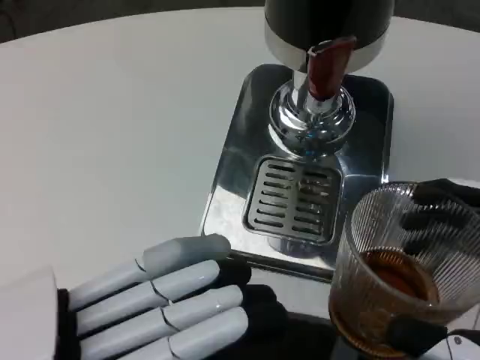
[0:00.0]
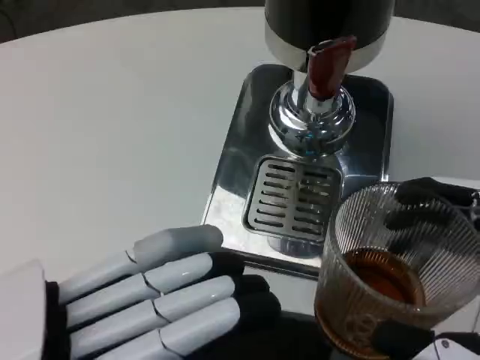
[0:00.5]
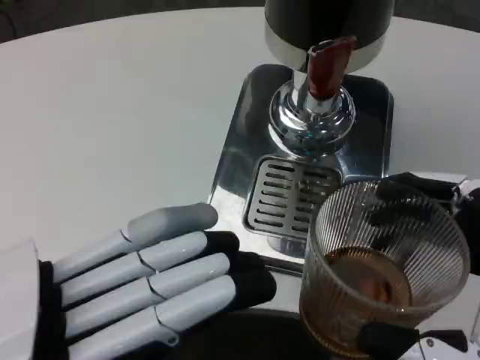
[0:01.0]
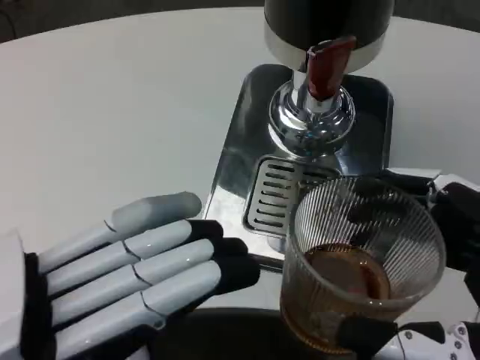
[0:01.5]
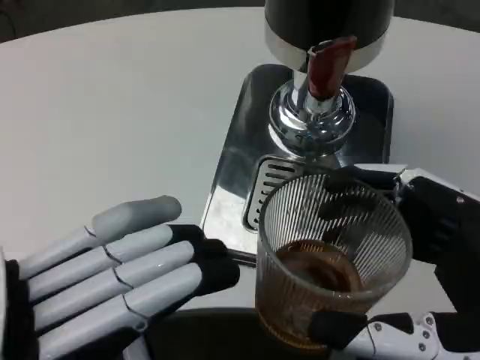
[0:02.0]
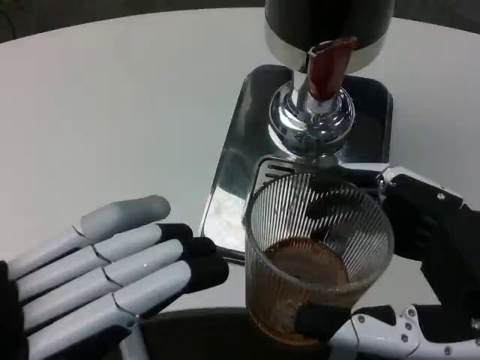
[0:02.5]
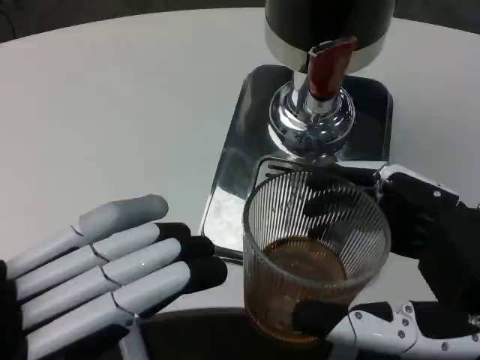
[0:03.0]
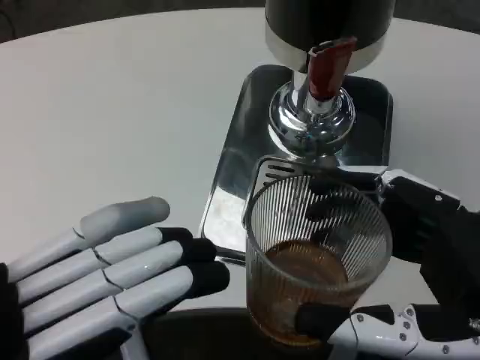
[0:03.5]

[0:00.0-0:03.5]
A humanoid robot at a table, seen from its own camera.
Task of the whole recording: Grasp the cup under the faucet to collect the drink, then remove the cup.
0:02.0 to 0:03.5: Neither hand changes place.

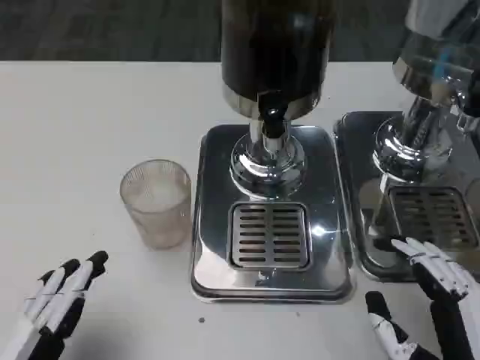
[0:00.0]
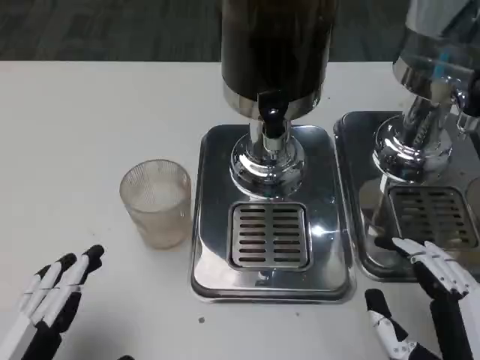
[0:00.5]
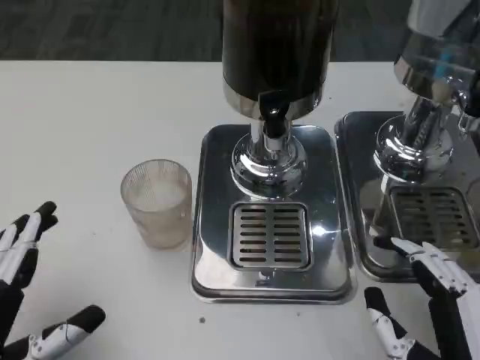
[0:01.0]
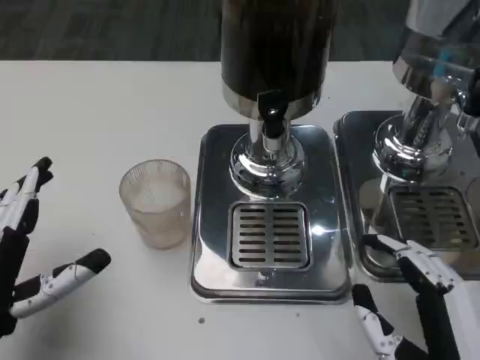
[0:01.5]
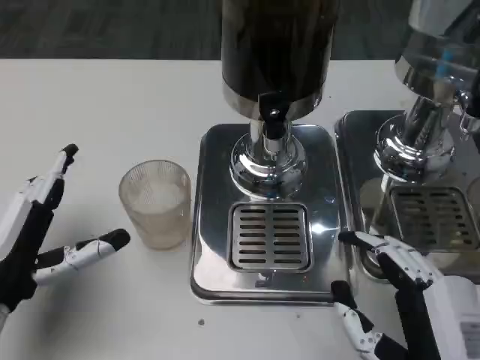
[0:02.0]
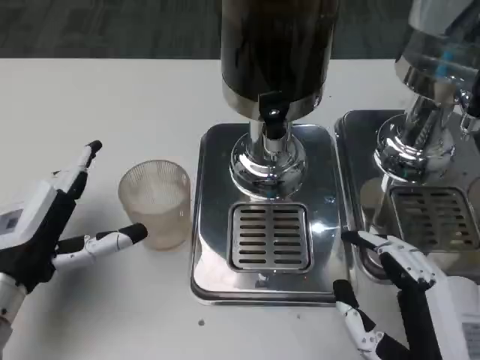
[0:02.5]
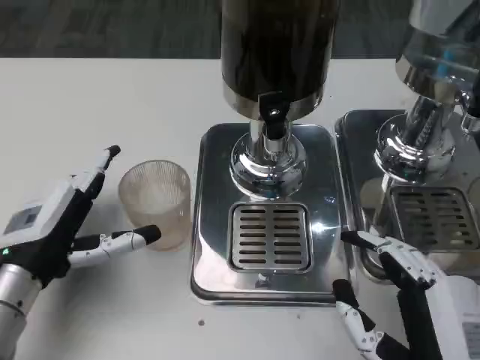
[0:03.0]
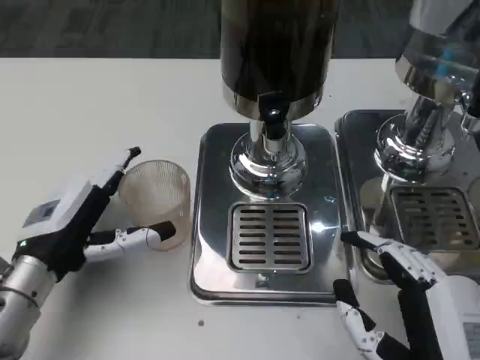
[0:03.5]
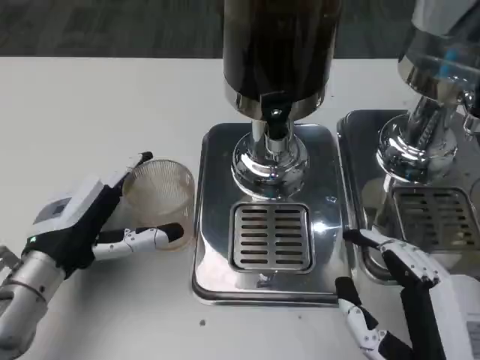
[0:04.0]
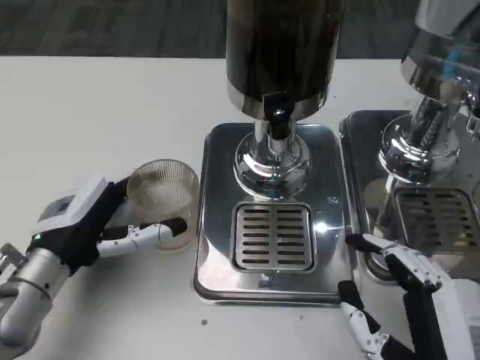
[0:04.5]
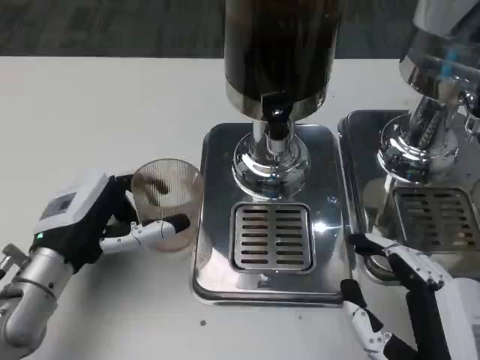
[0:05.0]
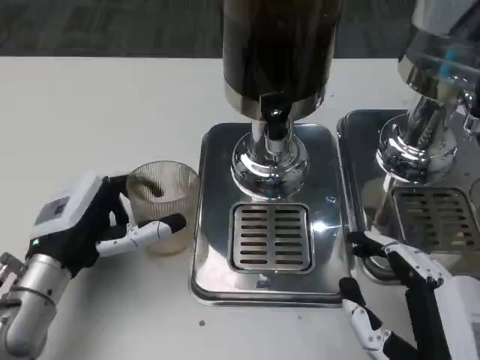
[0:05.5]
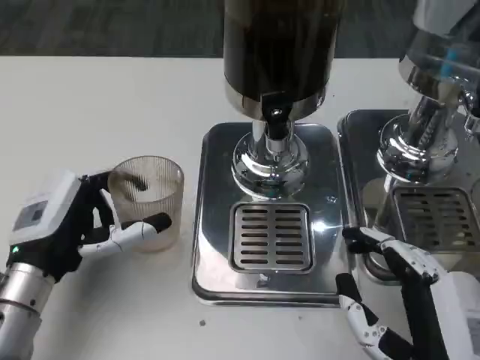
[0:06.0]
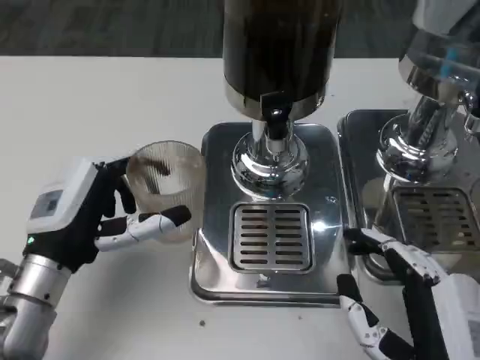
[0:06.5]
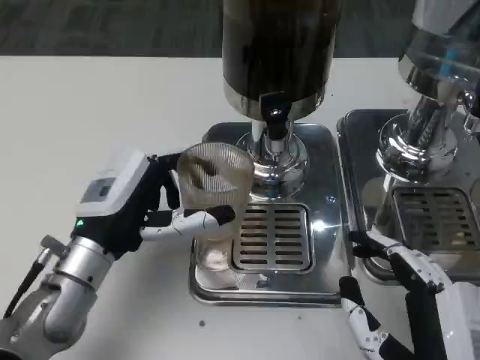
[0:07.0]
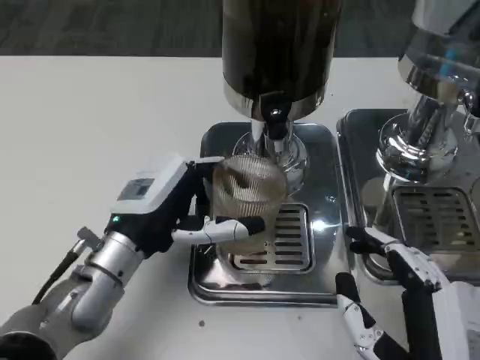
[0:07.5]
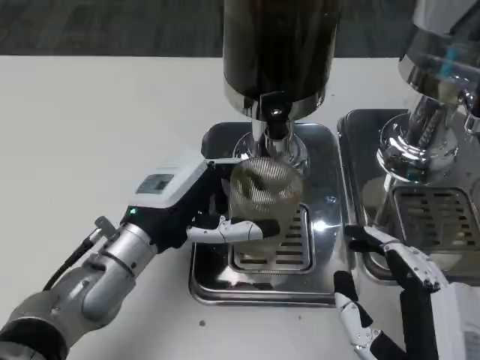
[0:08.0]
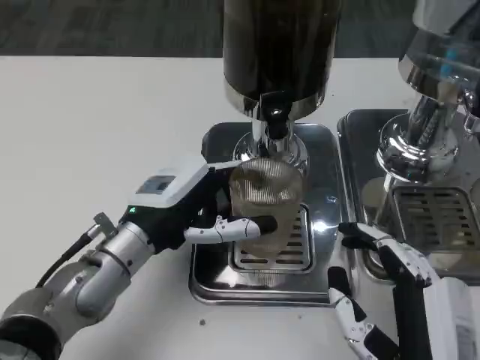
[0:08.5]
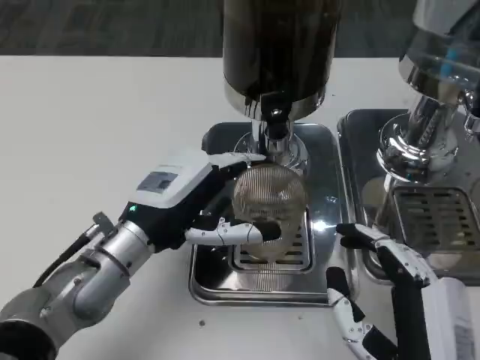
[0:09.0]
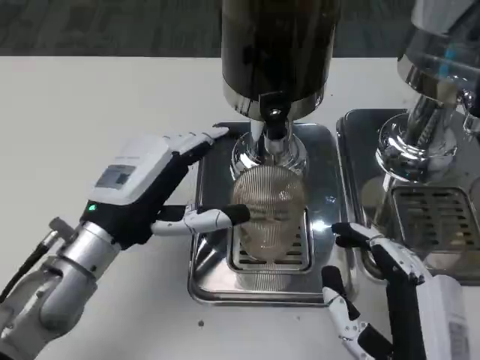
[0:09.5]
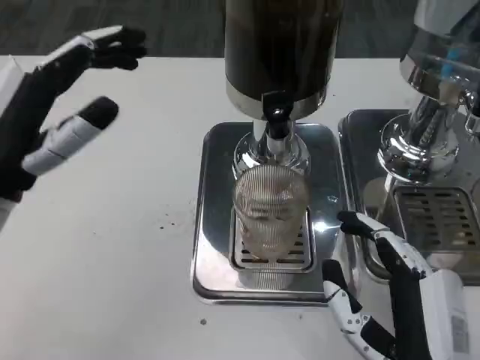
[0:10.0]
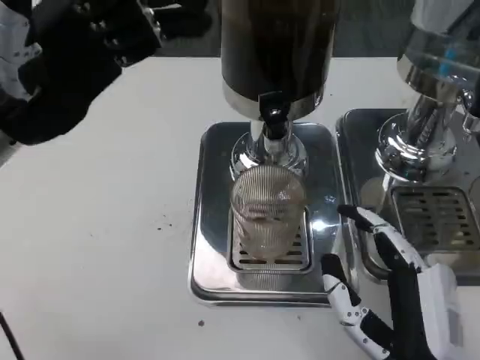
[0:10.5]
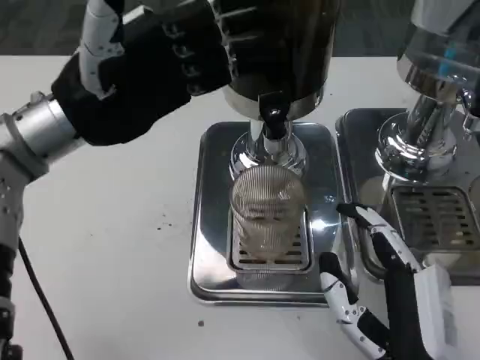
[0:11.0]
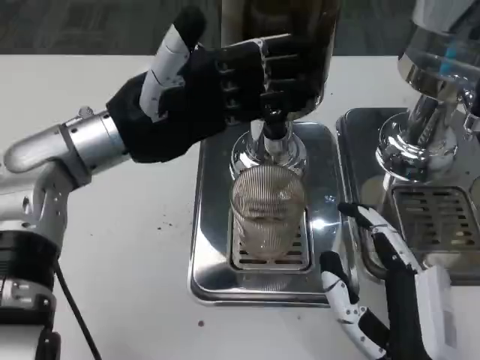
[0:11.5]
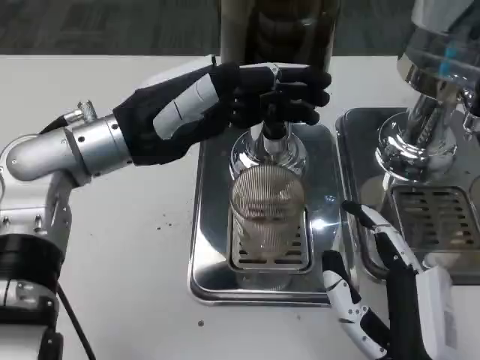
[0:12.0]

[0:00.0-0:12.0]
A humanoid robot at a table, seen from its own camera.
Task of the whole recording: Grasp the cup under the faucet to collect the drink, then remove the cup.
0:00.0 to 0:02.0: The left hand shifts approximately 15 cm forward.
0:02.0 to 0:04.0: The left hand heads forward, covering approximately 5 cm.
0:04.0 to 0:06.0: The hands make only small movements.
0:06.0 to 0:08.0: The left hand heads to the right, covering about 10 cm.
0:08.0 to 0:10.0: The left hand is displaced to the left and upward by approximately 15 cm.
0:10.0 to 0:12.0: The left hand goes about 10 cm forward and to the right.

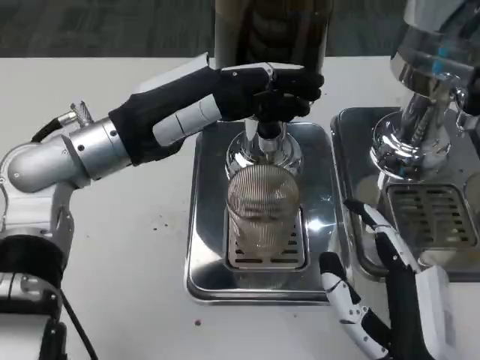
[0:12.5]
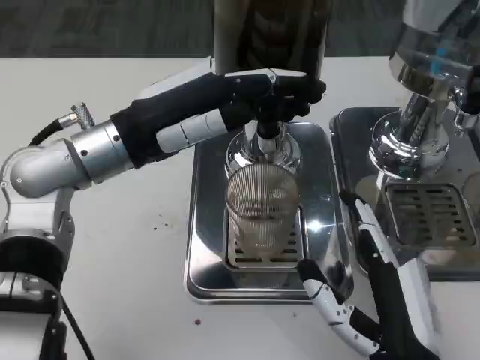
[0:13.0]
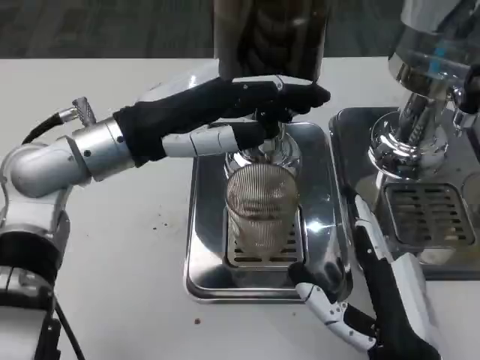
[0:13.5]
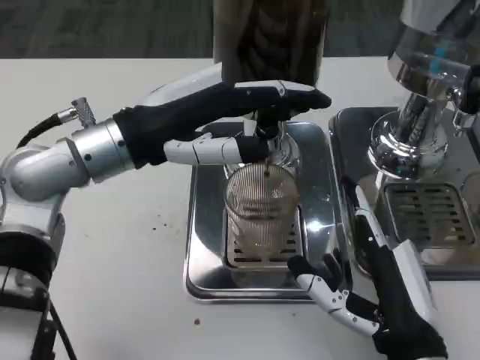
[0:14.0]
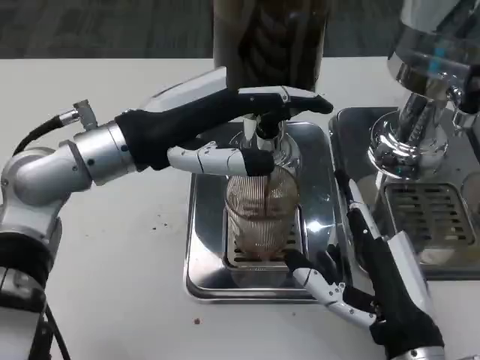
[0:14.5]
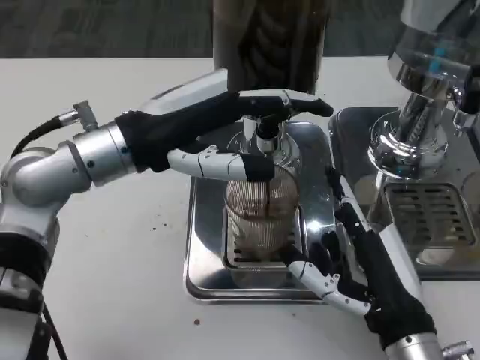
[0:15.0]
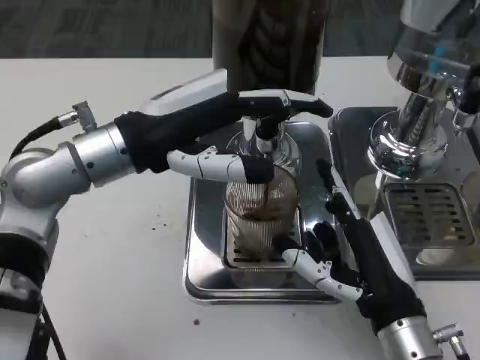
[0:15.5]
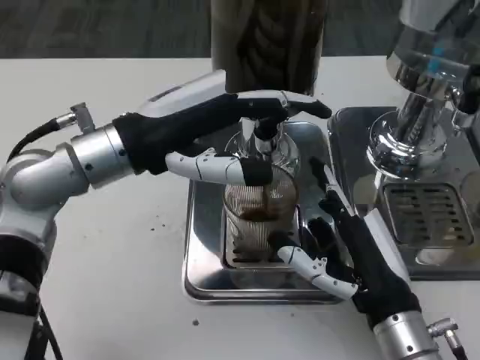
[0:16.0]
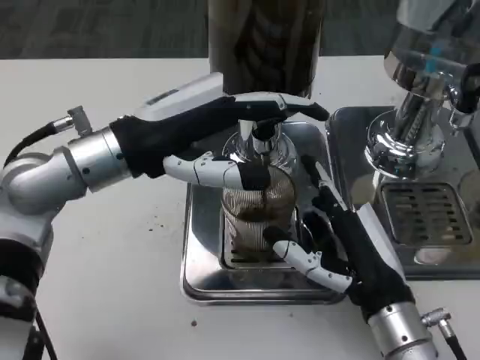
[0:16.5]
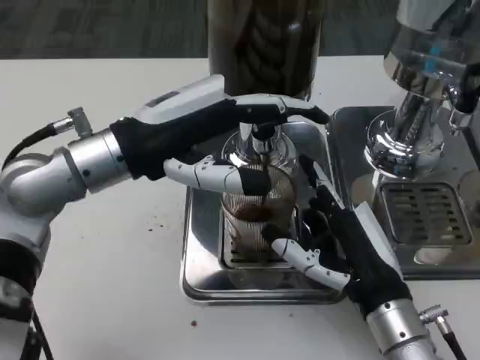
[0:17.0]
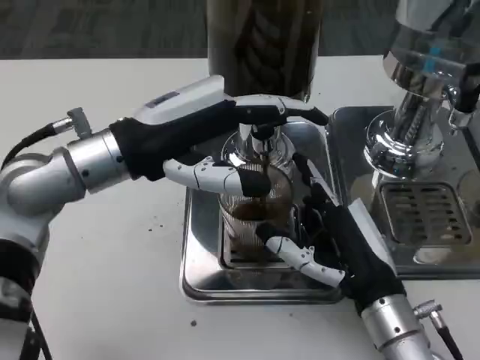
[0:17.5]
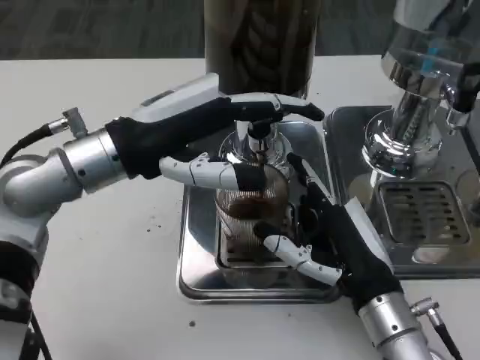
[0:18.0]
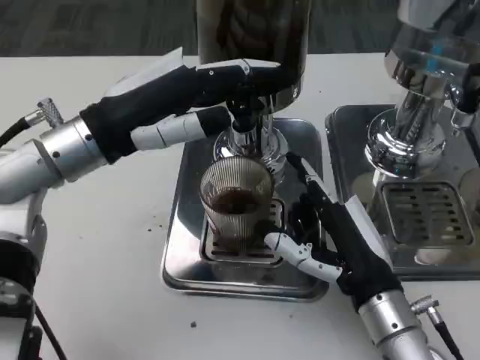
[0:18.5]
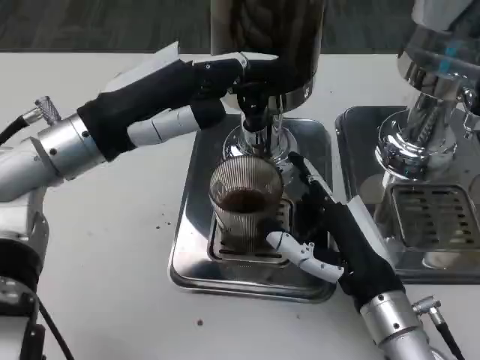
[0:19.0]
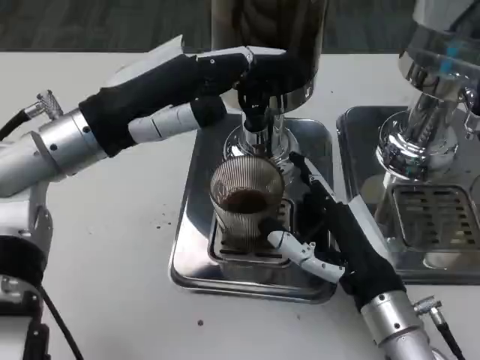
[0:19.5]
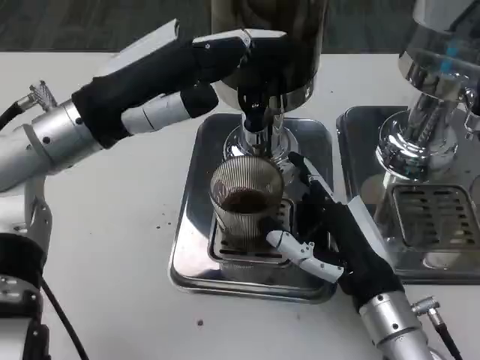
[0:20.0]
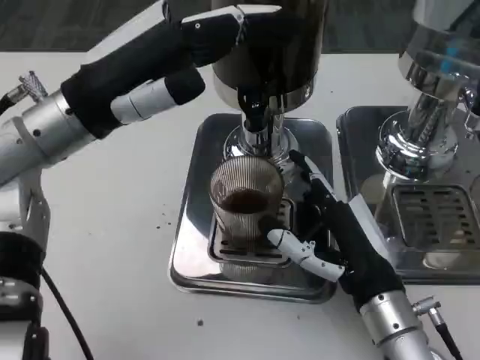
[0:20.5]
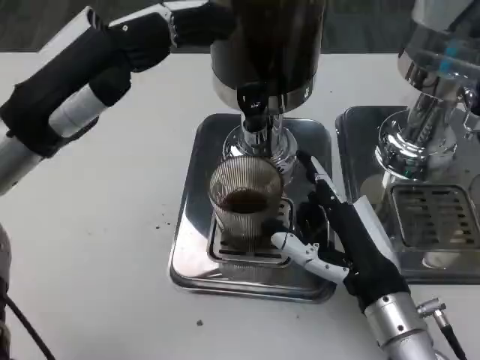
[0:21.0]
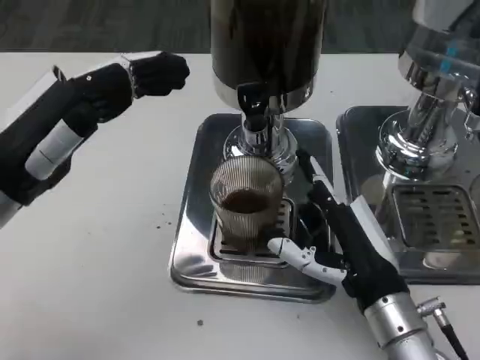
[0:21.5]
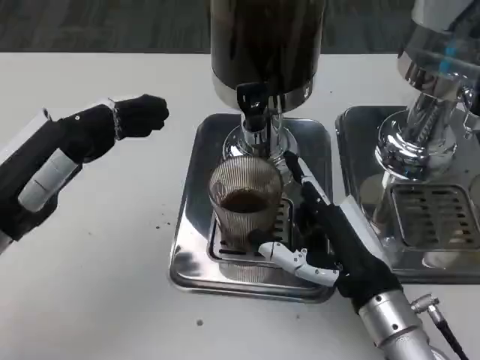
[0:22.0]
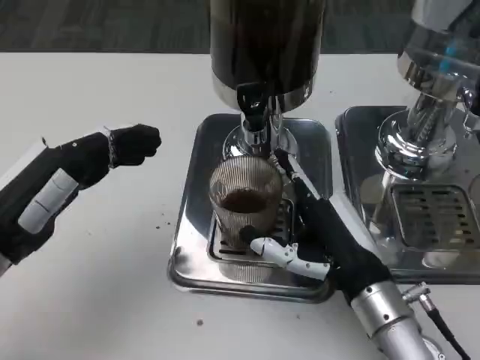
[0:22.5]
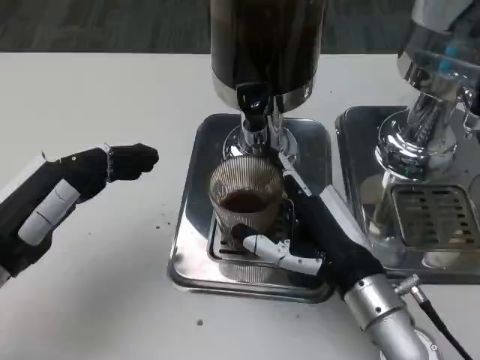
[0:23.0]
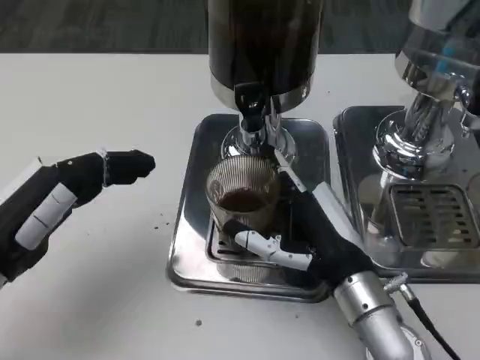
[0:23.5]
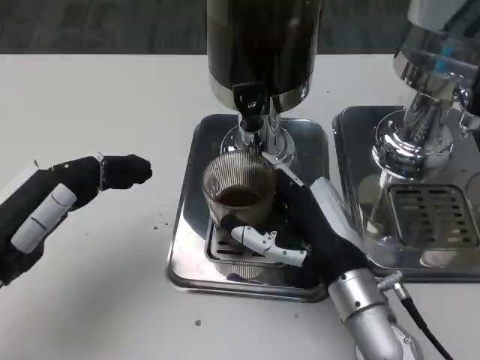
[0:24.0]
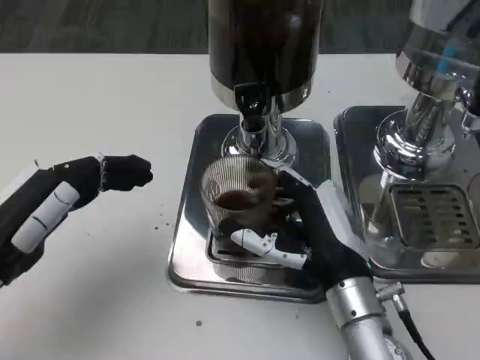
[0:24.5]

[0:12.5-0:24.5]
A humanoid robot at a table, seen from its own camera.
Task of the whole recording: Grasp the cup under the faucet to collect the drink, then remove the cup.
0:20.5 to 0:22.5: The left hand is displaced downward, backward and to the left by about 15 cm.
0:22.5 to 0:24.5: There are only small adjustments of the hands.
